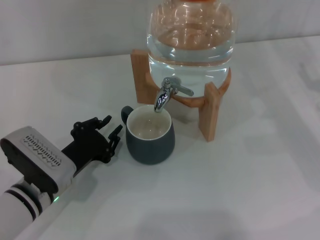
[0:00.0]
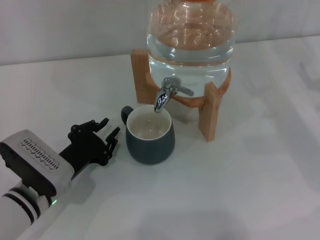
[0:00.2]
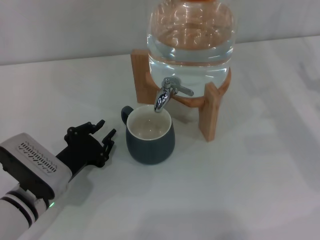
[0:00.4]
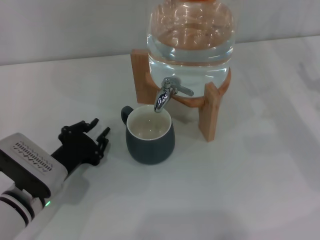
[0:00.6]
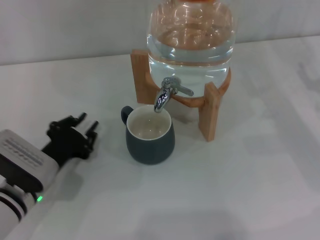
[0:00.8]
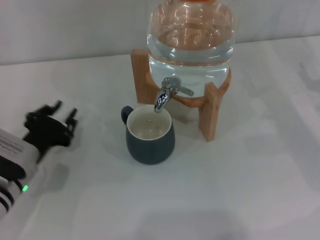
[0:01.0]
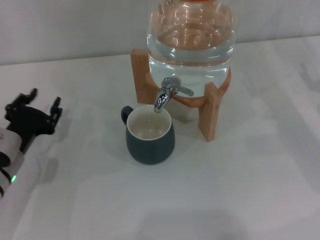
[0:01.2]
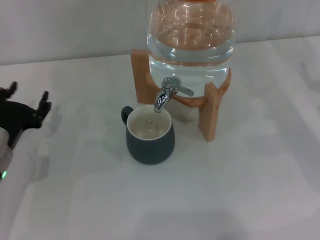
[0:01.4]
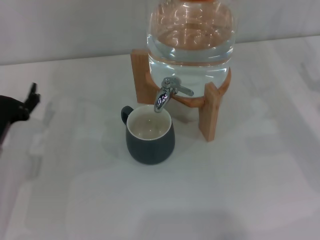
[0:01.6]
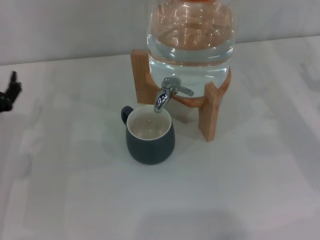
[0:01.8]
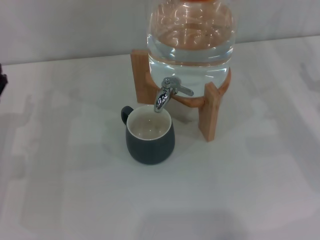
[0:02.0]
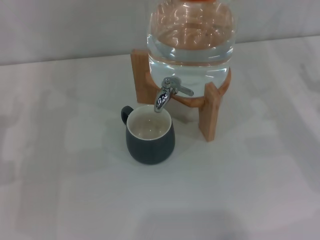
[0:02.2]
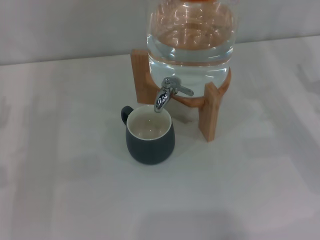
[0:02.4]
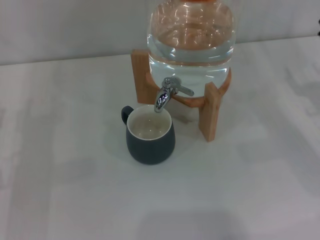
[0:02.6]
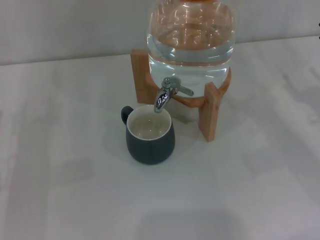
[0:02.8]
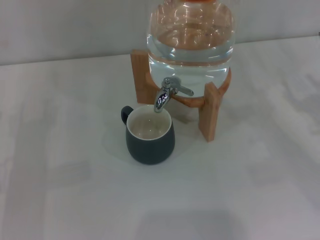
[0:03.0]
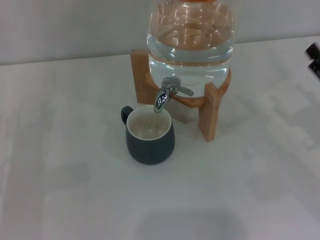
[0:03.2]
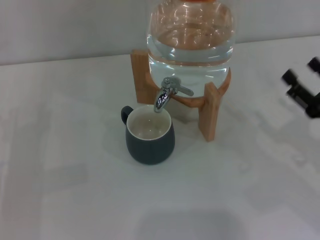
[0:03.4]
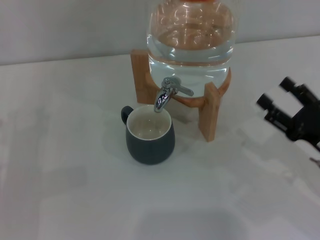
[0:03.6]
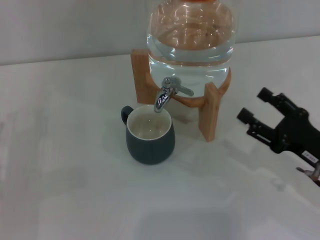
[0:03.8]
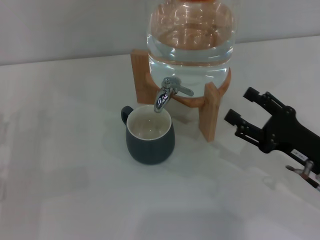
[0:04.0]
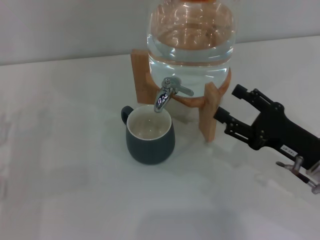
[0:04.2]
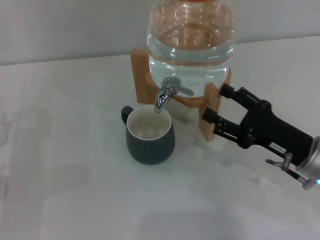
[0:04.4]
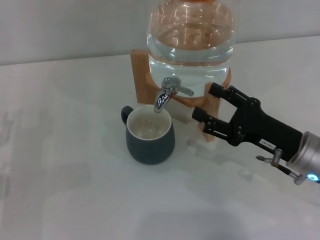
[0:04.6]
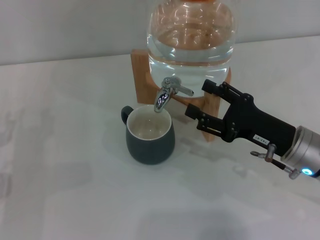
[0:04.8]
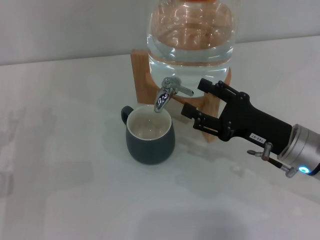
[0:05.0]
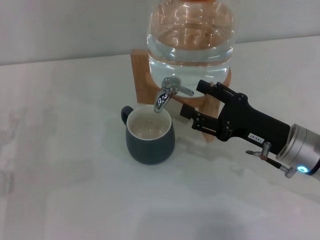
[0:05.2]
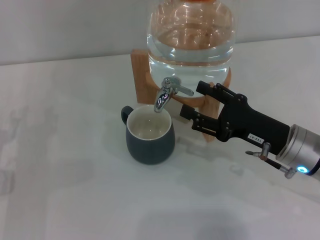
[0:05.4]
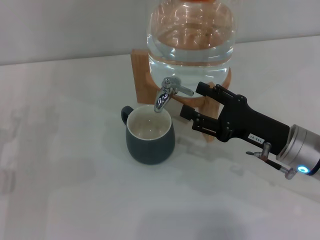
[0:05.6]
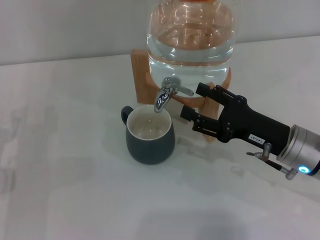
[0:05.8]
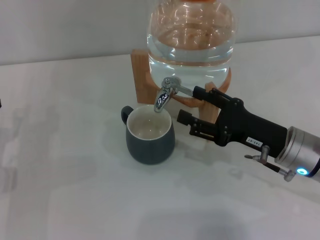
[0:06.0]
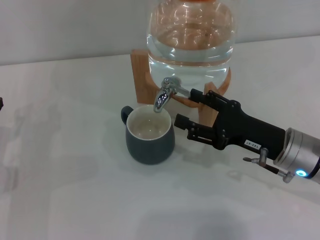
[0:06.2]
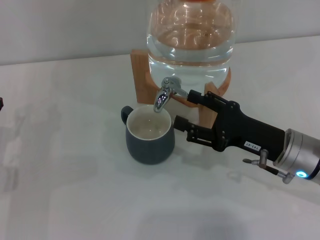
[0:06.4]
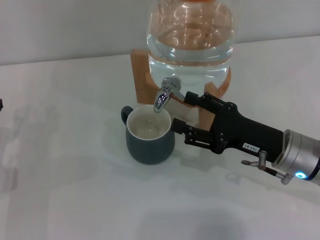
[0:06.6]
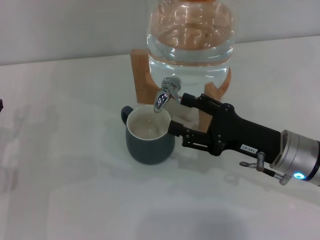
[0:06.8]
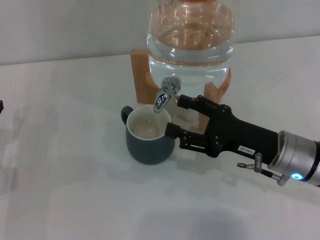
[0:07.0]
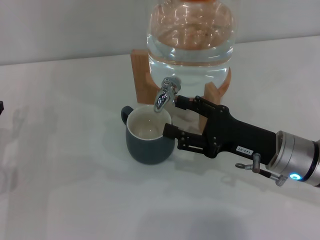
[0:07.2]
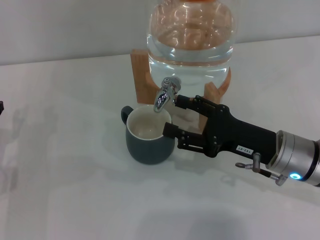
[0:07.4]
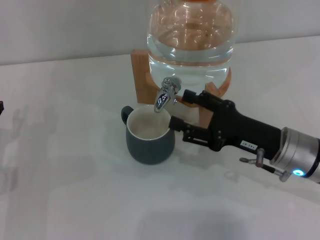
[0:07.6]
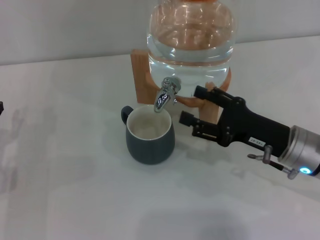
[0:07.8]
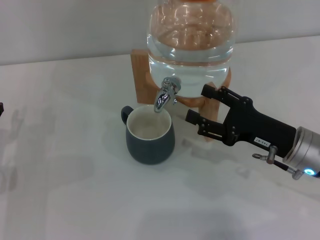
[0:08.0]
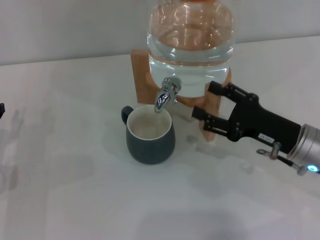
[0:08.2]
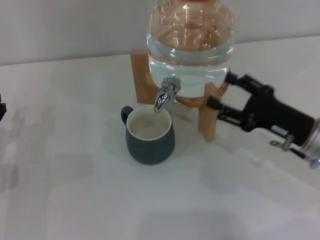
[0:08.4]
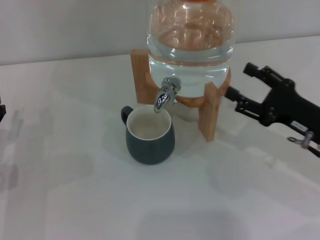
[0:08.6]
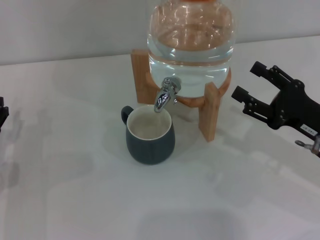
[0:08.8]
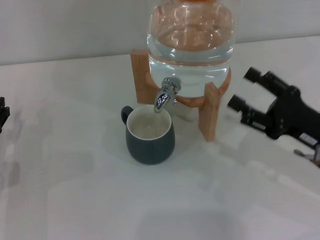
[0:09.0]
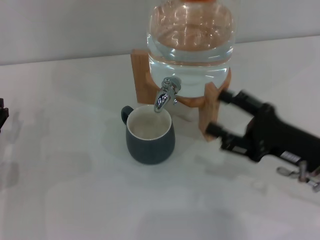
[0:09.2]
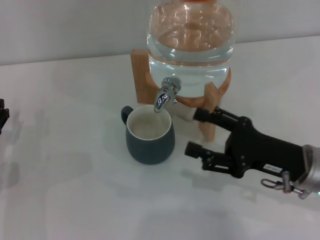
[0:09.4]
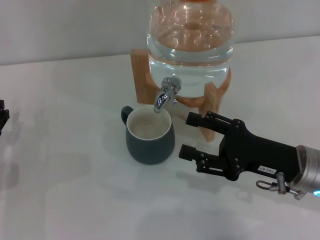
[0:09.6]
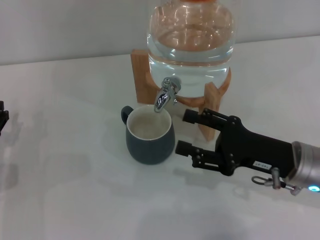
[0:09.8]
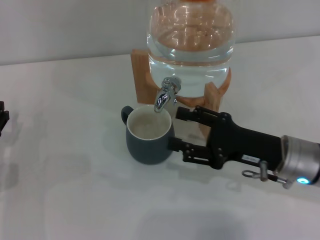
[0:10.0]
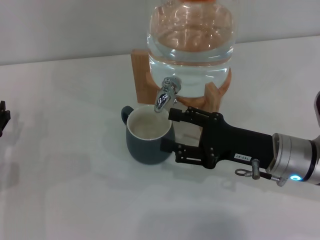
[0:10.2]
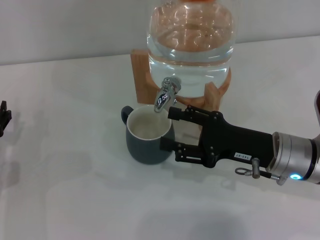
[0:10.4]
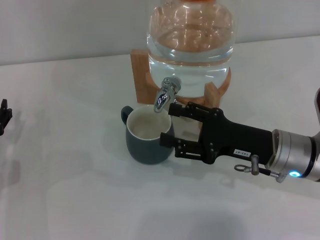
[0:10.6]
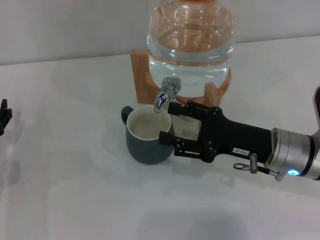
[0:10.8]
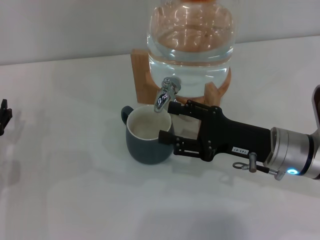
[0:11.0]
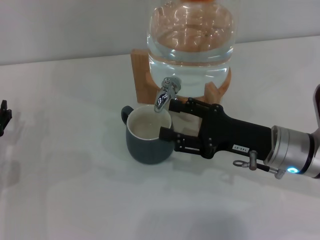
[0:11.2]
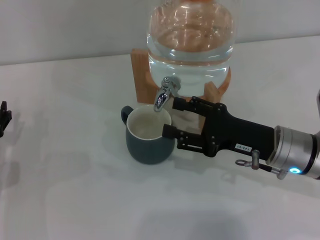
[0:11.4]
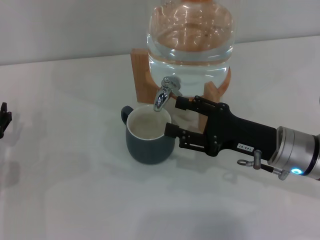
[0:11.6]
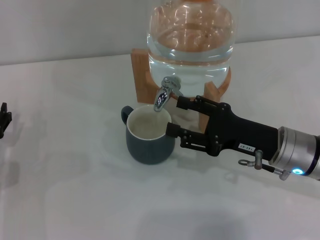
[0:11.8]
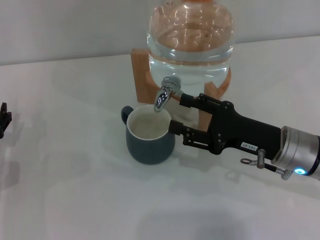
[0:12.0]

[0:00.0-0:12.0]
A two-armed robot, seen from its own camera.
Task of the whole recording: the left gripper pick up the black cup and place it horizontally under the faucet, the right gripper turn on the faucet to fill the cup, and then turn off the faucet.
Step, 0:00.4 to 0:07.4: Open the dispenser valve and fill the cup with water with the right gripper.
0:00.0 to 0:01.6: The left gripper travels to the left by approximately 5 cm, and opens up.
0:01.6 to 0:03.0: The left gripper goes about 5 cm to the left.
0:03.0 to 0:04.4: The right gripper heads to the left, covering approximately 10 cm.
0:04.4 to 0:07.6: The grippers stay close to where they were, moving slightly.
0:07.6 to 0:09.0: The right gripper goes some 5 cm to the right.
0:09.0 to 0:10.4: The right gripper goes approximately 5 cm to the left.
0:10.4 to 0:12.0: There are only small adjustments of the grippers.

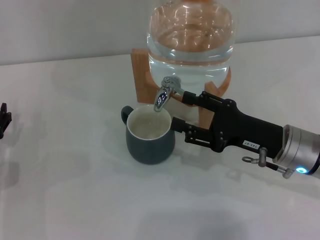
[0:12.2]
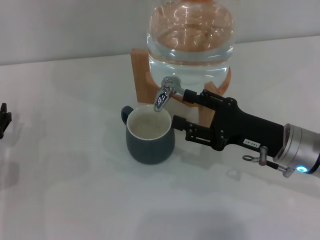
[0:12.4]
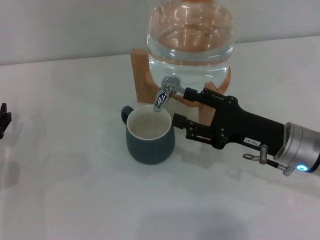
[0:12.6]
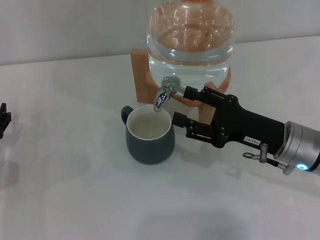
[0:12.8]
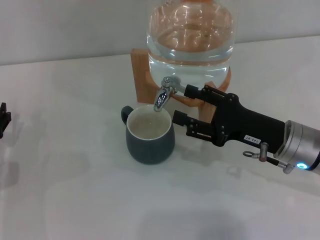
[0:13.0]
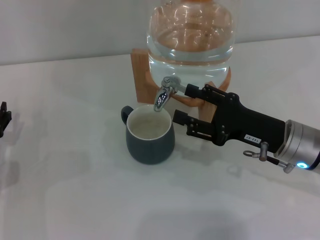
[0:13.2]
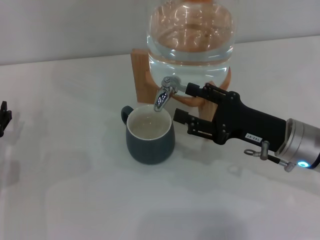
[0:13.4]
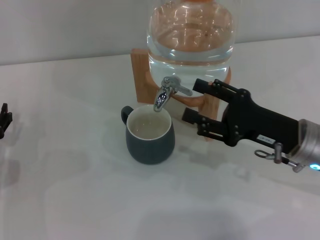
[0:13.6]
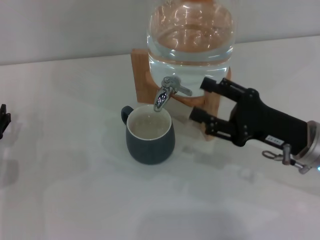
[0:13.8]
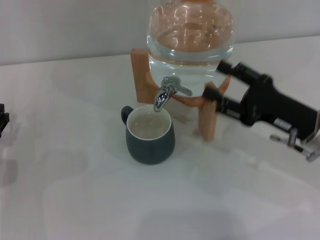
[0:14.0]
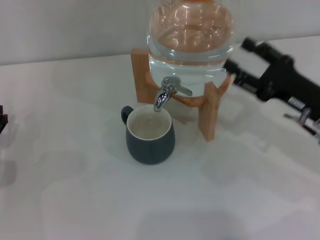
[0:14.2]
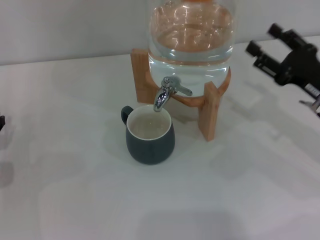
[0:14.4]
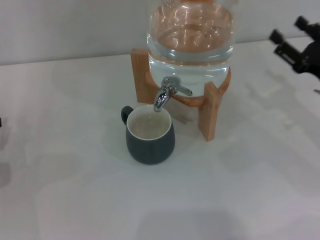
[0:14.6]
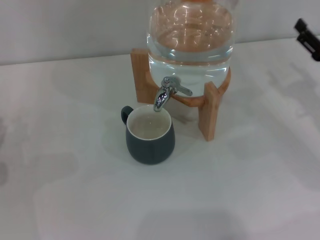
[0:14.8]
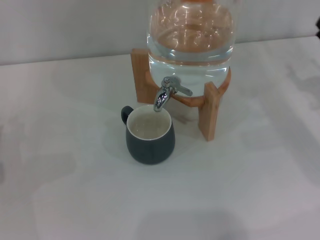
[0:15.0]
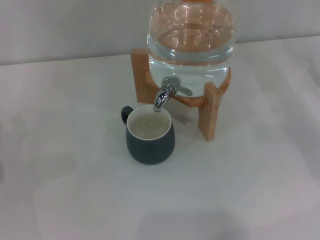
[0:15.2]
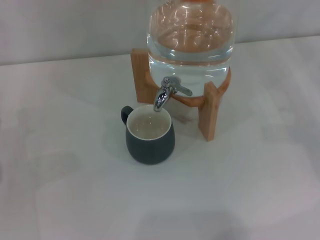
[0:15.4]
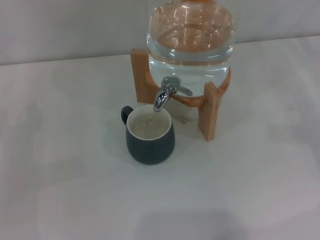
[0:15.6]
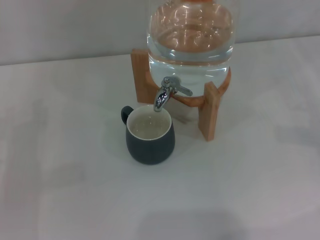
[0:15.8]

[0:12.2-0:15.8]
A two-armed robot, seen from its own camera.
Task of the whole recording: the left gripper pick up the black cup and place it horizontally under the faucet, the right gripper turn on the faucet to fill the cup, and then turn off the faucet.
0:12.2 to 0:14.0: The grippers move only a little.
0:14.0 to 0:15.8: The right gripper travels to the right by about 15 cm.
